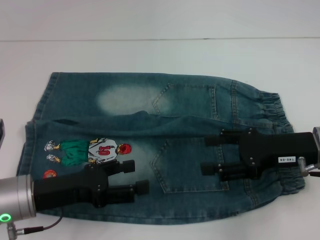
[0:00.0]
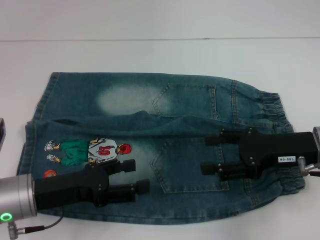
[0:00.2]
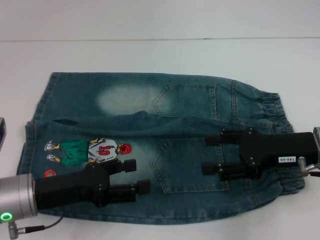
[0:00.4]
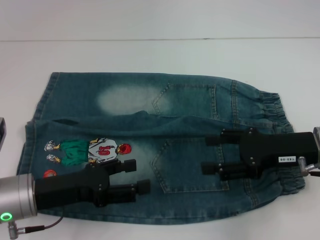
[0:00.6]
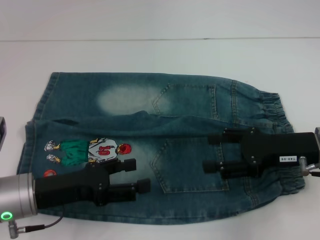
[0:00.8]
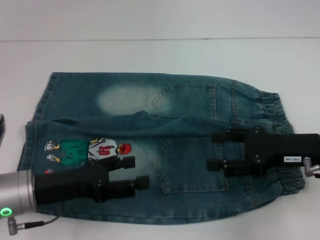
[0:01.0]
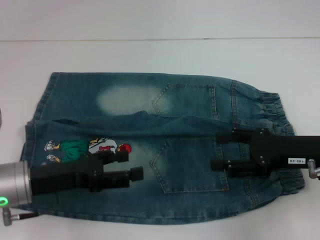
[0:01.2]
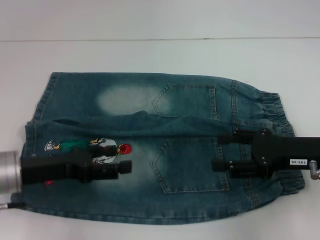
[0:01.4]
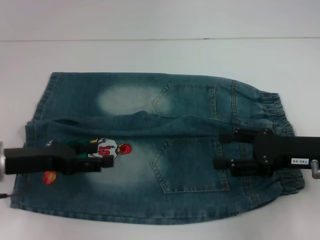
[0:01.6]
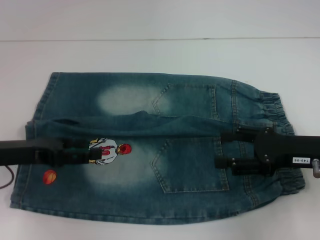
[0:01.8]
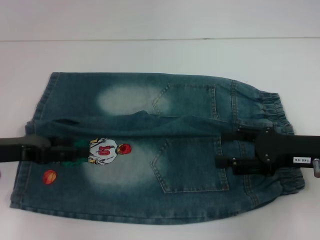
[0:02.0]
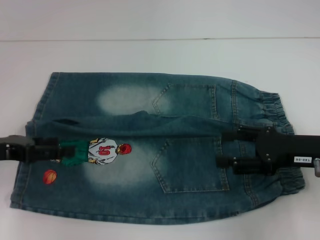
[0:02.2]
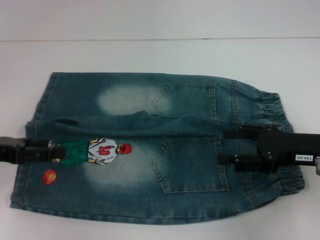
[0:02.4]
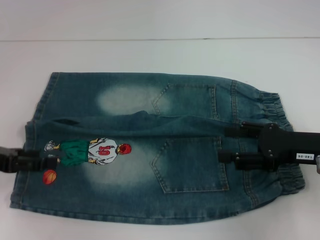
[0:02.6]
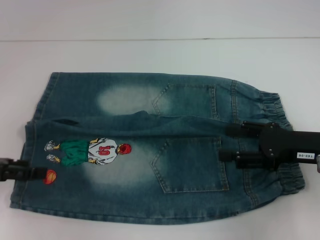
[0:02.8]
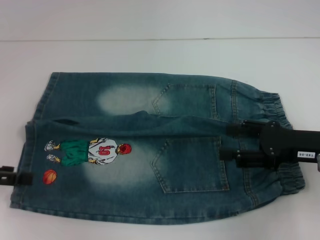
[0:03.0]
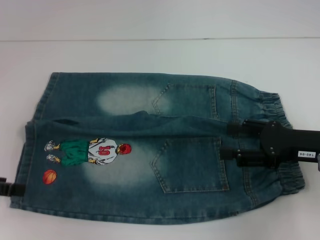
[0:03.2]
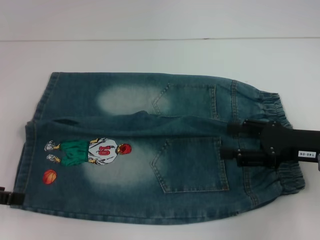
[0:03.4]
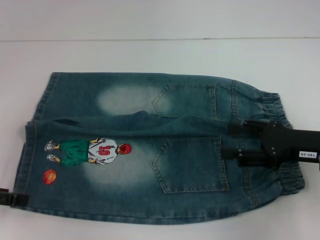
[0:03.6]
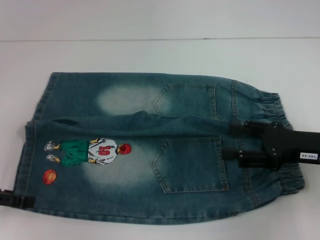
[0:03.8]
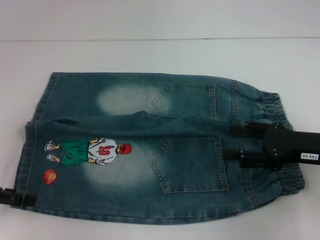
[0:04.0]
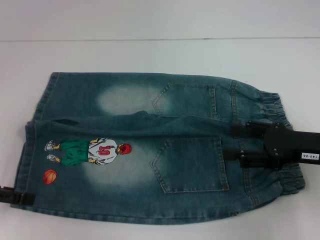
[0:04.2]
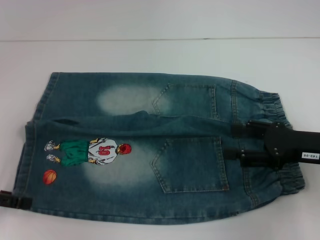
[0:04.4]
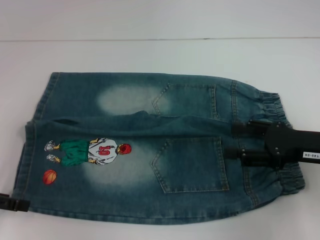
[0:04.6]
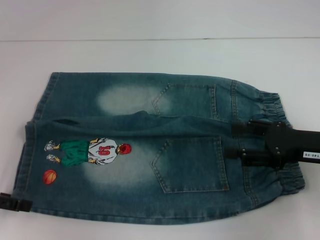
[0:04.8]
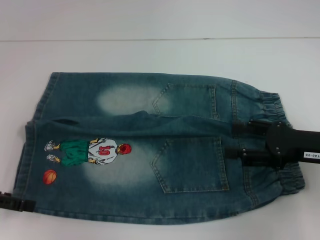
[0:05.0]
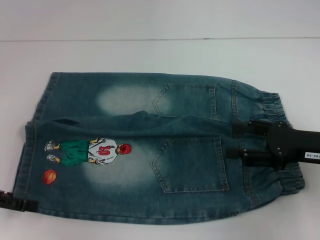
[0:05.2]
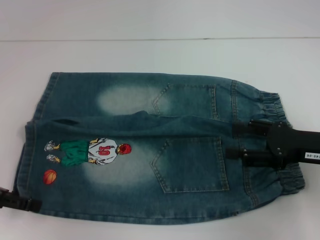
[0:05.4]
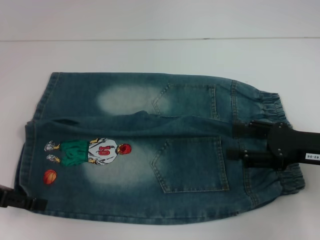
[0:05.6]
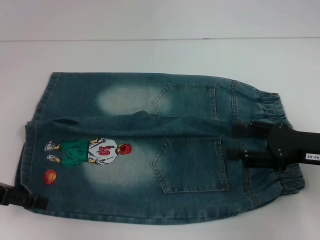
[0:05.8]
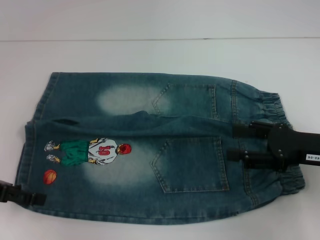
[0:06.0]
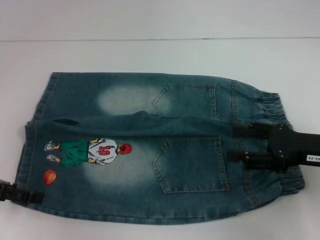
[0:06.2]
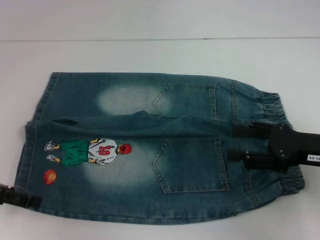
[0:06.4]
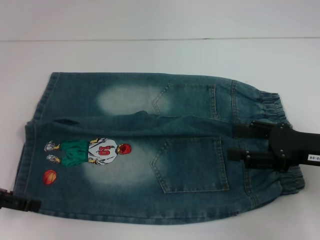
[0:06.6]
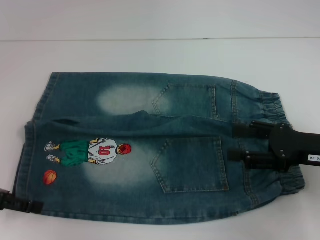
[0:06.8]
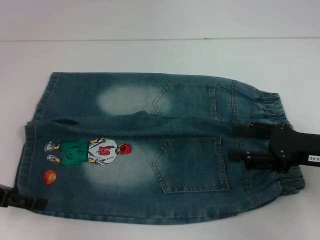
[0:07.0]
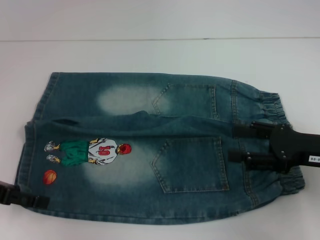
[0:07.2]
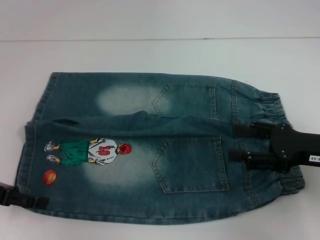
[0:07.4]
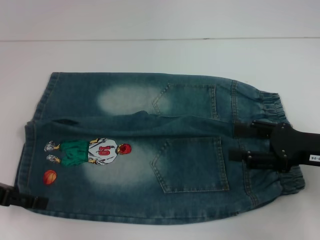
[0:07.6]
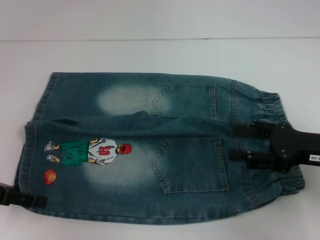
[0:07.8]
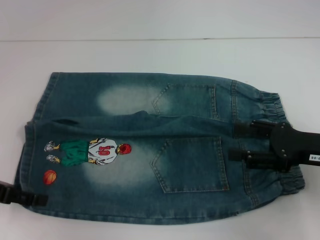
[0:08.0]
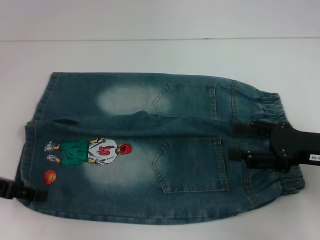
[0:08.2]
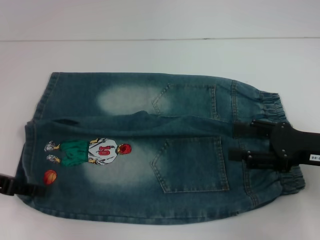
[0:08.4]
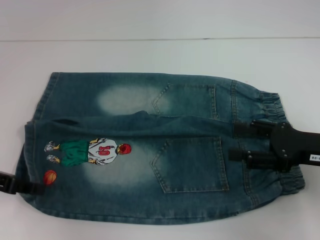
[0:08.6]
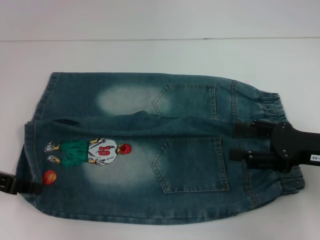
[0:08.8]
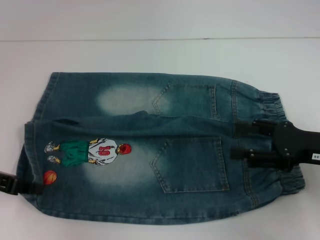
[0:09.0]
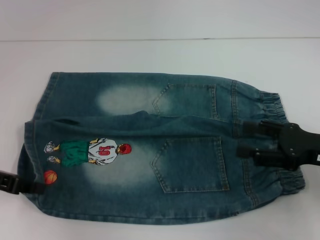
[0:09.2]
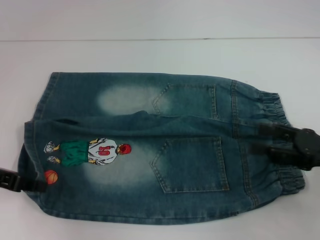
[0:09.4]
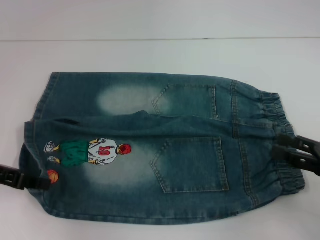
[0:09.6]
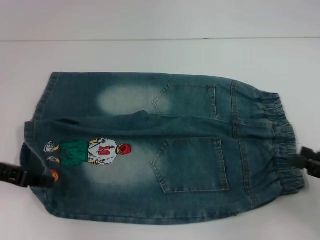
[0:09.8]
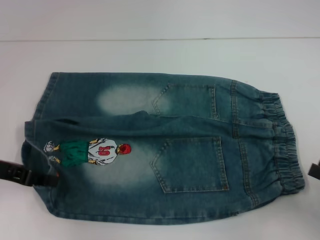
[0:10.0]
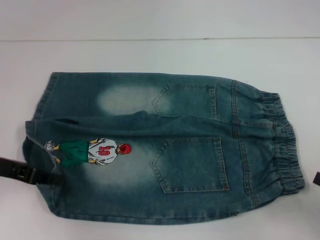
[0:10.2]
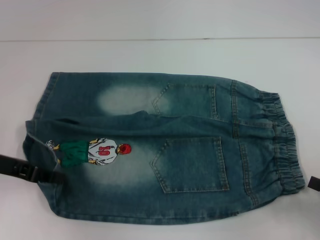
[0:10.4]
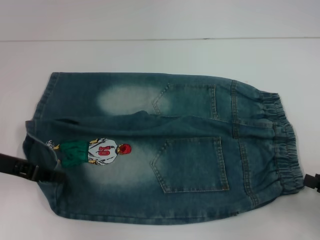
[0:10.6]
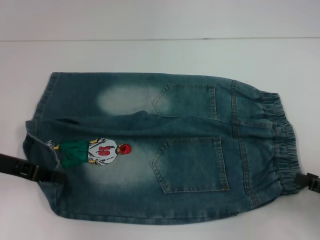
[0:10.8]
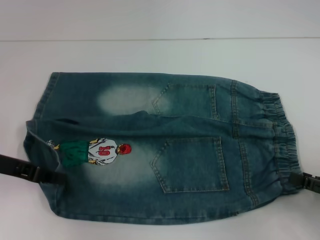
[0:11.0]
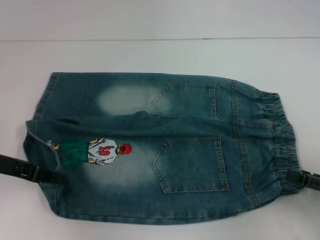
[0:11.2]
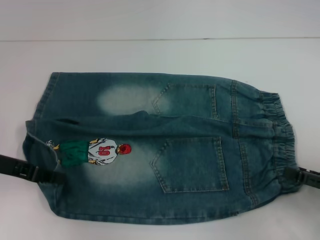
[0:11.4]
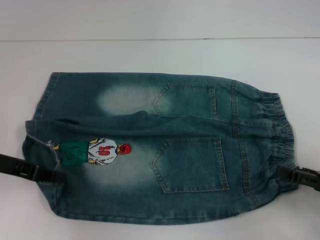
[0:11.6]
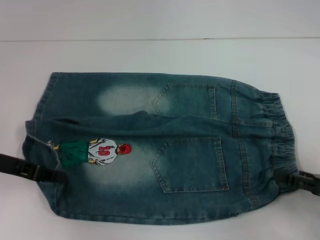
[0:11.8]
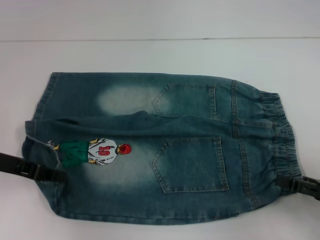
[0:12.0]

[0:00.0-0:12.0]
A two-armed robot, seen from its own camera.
Step, 0:00.0 to 0:09.0: Grab the lower left pant leg with your left hand.
0:00.0 to 0:01.6: The left gripper changes place by about 5 cm.
0:01.6 to 0:03.0: The left gripper goes roughly 10 cm to the left.
0:03.0 to 0:06.0: The grippers stay close to where they were, moving slightly.
0:06.0 to 0:07.6: Both grippers stay put.
0:07.6 to 0:09.0: The left gripper closes up.
0:09.0 to 0:10.4: The right gripper moves backward, to the right and downward, approximately 15 cm.
0:10.4 to 0:12.0: There are only small adjustments of the grippers.

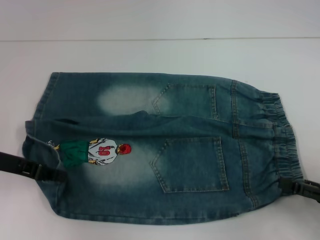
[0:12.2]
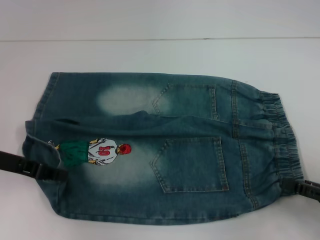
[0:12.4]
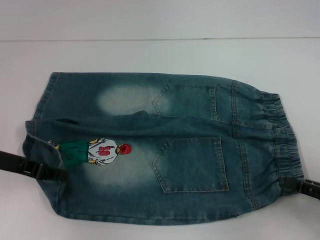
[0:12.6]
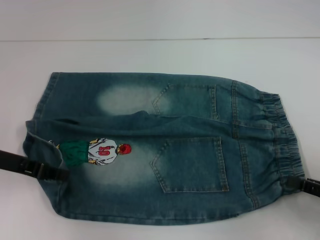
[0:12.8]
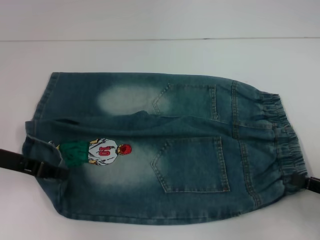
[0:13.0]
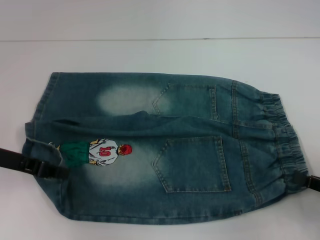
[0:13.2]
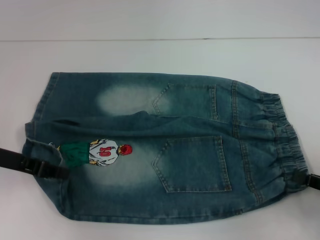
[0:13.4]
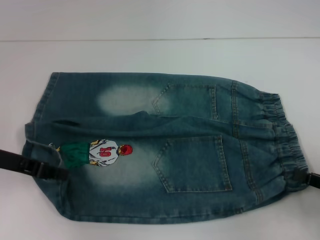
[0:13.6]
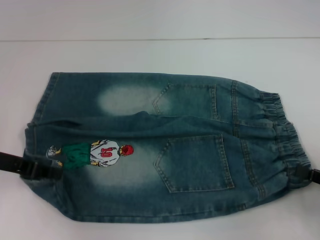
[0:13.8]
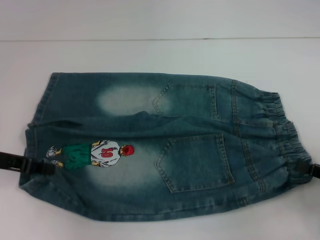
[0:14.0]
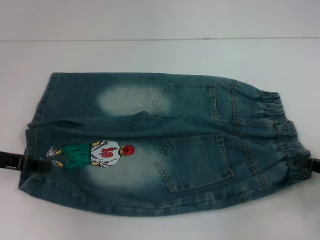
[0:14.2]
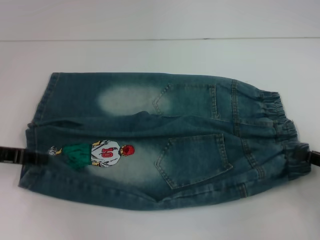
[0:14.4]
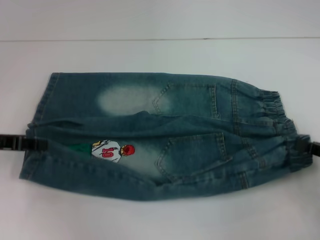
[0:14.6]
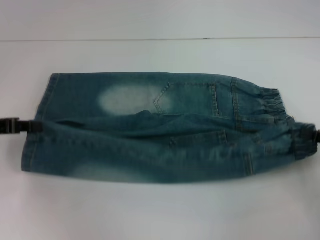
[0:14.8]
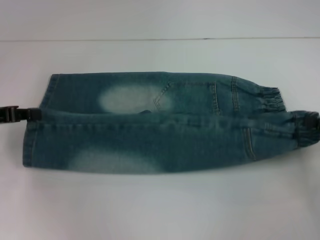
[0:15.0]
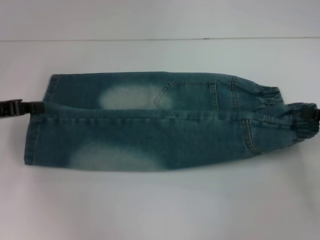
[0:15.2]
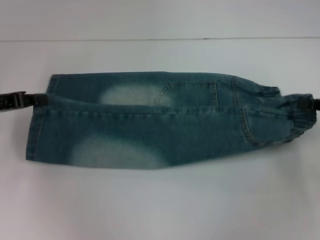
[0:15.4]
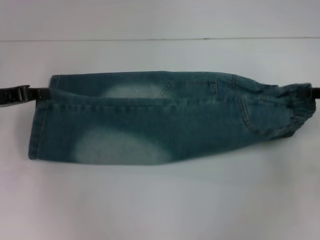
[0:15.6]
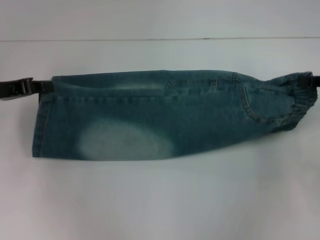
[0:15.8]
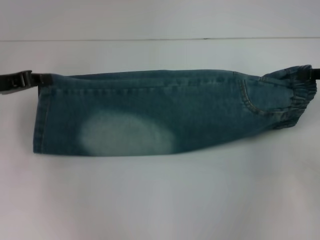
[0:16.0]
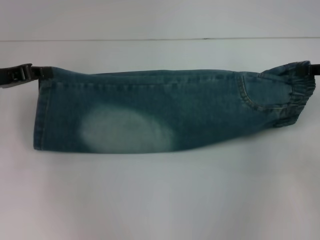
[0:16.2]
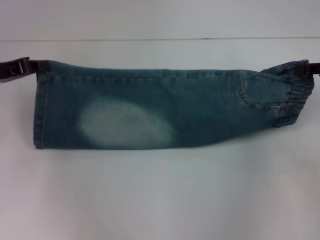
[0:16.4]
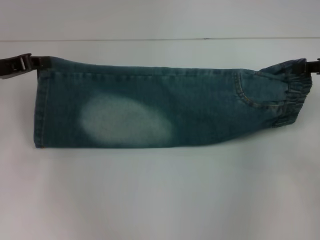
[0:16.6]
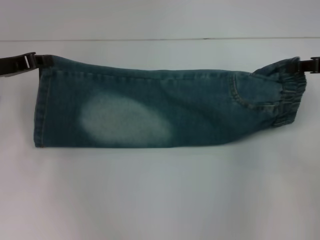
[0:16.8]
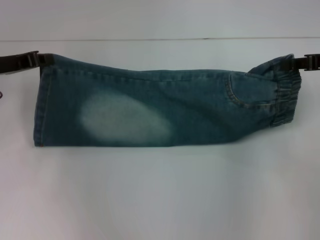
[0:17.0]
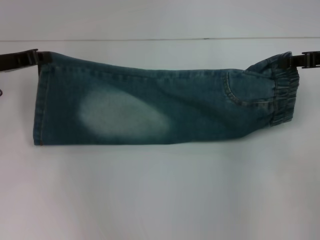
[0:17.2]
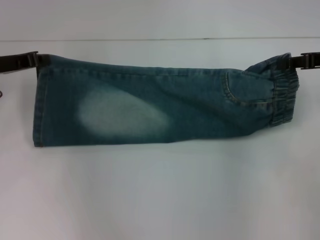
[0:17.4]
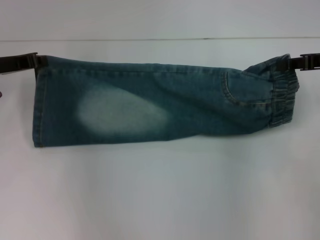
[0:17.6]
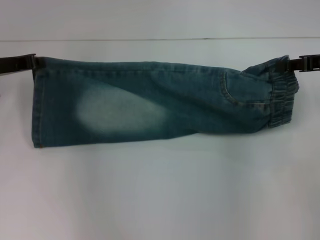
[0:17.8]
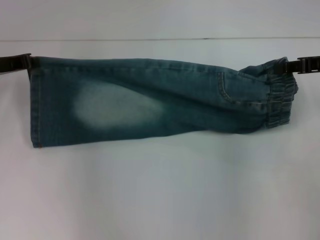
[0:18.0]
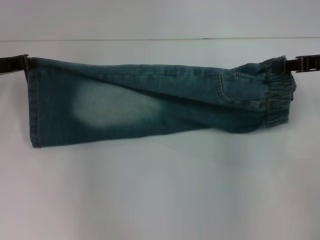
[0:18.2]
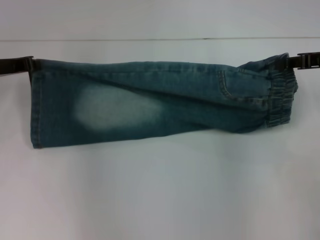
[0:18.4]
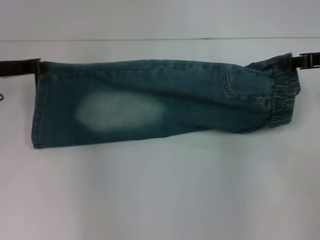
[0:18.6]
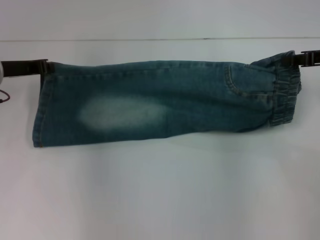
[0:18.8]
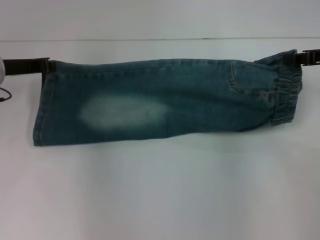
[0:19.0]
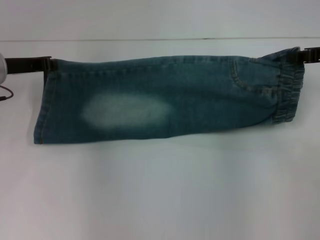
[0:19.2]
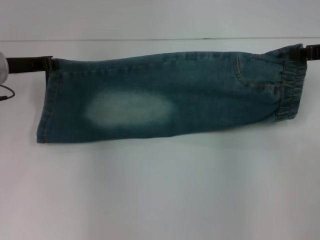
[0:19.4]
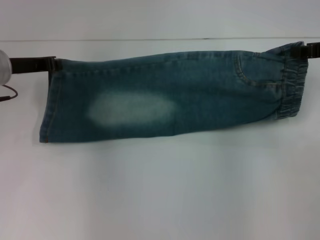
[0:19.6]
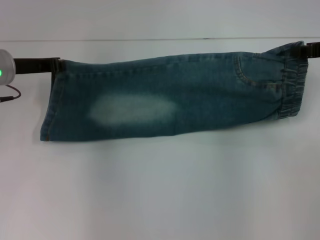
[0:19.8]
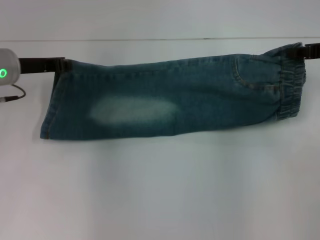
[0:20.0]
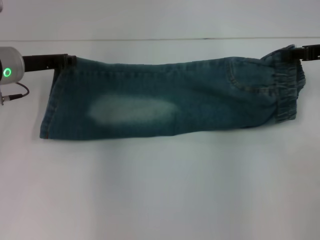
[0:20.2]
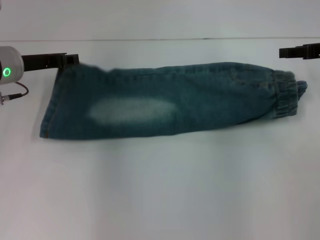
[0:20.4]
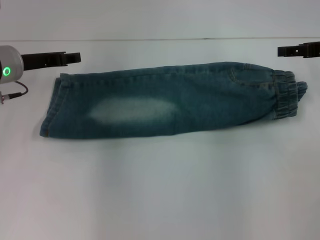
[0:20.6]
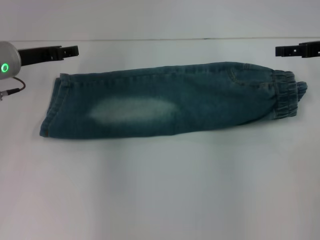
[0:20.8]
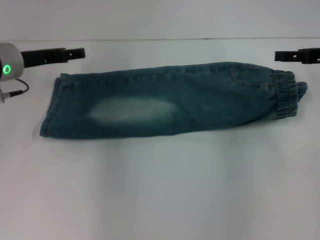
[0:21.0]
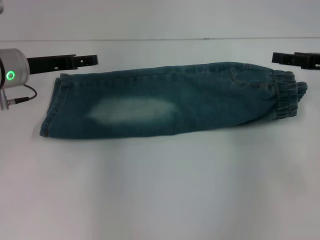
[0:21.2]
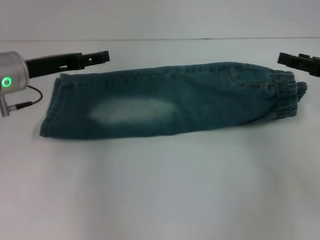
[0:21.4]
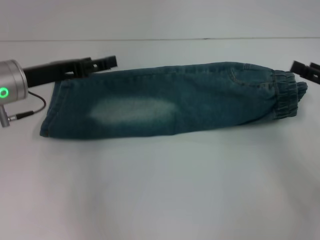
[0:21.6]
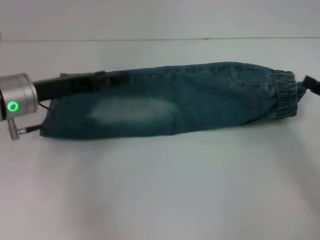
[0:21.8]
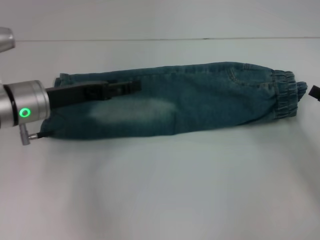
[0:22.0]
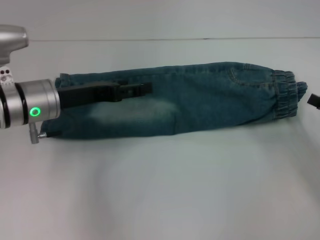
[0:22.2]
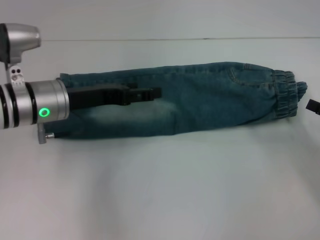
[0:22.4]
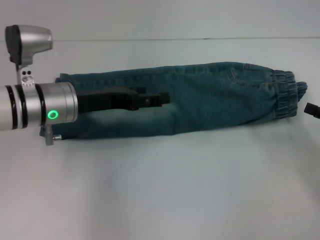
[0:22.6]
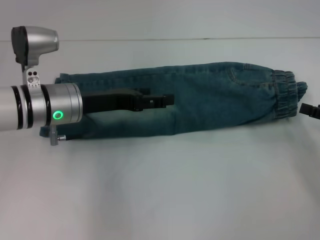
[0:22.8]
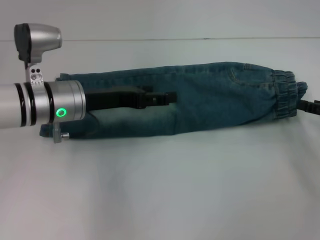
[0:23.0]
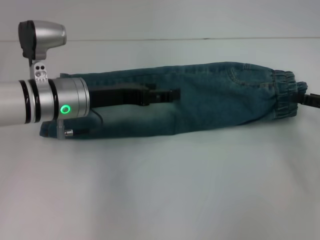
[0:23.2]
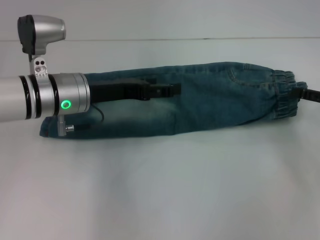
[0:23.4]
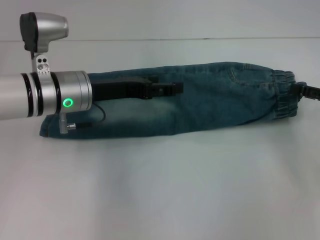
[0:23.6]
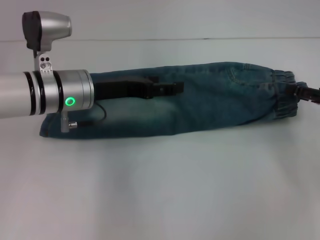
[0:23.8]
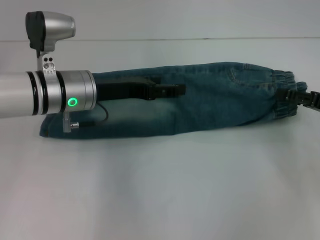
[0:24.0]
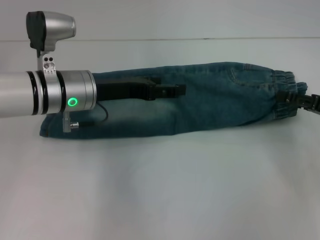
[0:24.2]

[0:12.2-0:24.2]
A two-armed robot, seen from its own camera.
Step, 0:13.4 to 0:20.8: Fold upward with your right hand.
0:12.2 to 0:13.8: The right gripper closes.
0:13.8 to 0:15.2: The right gripper heads forward and upward, covering about 10 cm.
0:15.2 to 0:16.6: The right gripper is displaced forward and upward by about 10 cm.
0:16.6 to 0:18.2: The grippers make only small movements.
0:18.2 to 0:19.8: The grippers move only a little.
0:19.8 to 0:21.2: The left gripper opens; the right gripper opens.
0:21.2 to 0:22.6: The left gripper moves to the right, roughly 5 cm; the right gripper moves backward, downward and to the right, about 15 cm.
0:22.6 to 0:24.2: The right gripper ends up roughly 5 cm from where it was.
